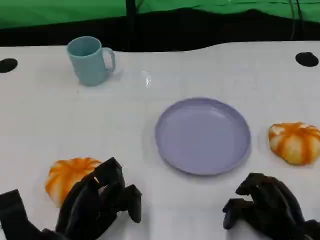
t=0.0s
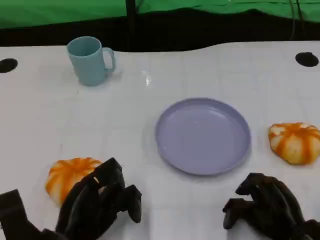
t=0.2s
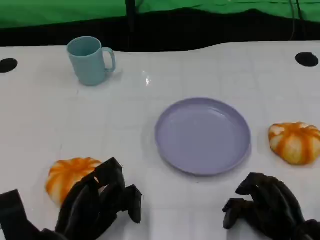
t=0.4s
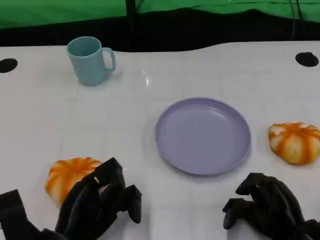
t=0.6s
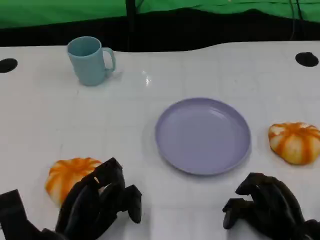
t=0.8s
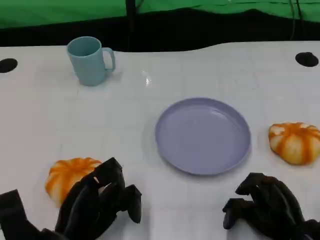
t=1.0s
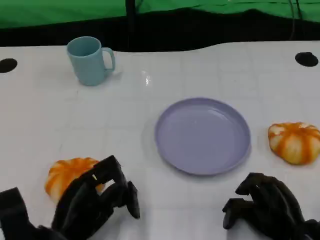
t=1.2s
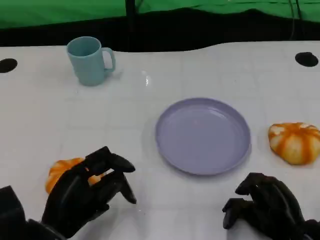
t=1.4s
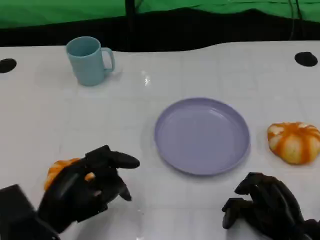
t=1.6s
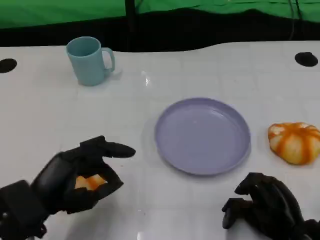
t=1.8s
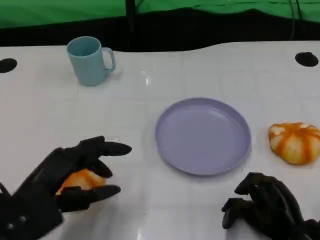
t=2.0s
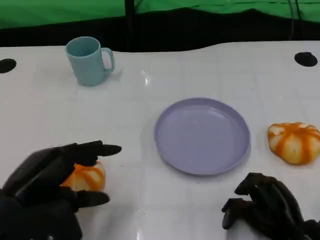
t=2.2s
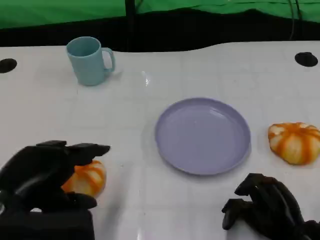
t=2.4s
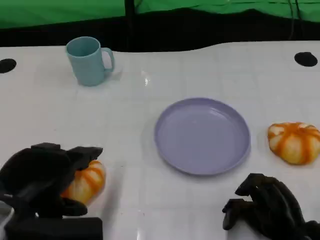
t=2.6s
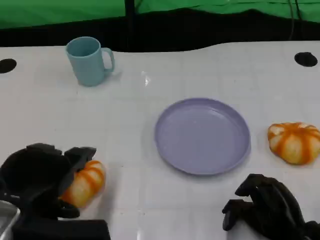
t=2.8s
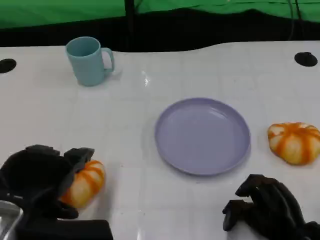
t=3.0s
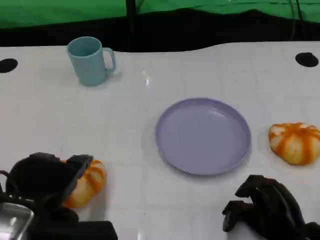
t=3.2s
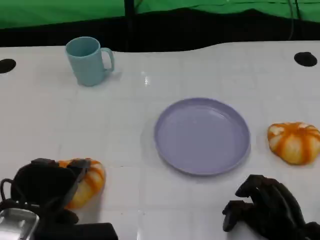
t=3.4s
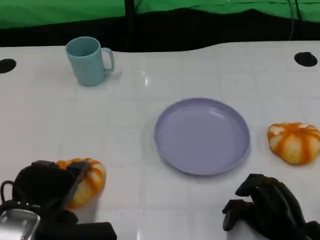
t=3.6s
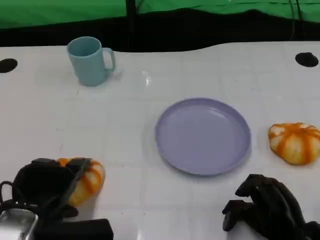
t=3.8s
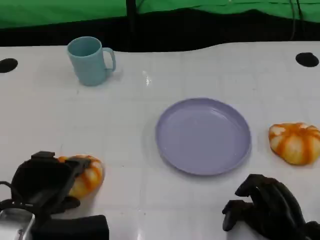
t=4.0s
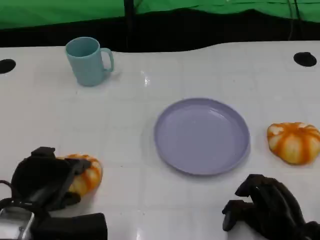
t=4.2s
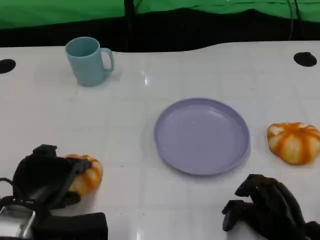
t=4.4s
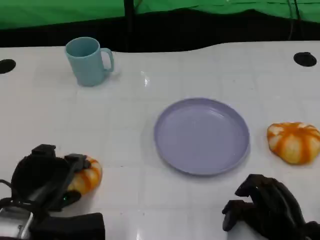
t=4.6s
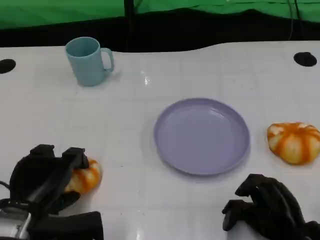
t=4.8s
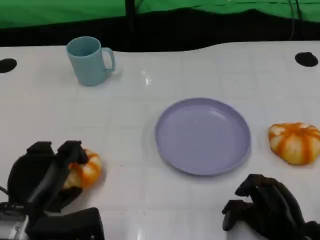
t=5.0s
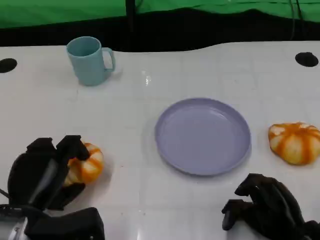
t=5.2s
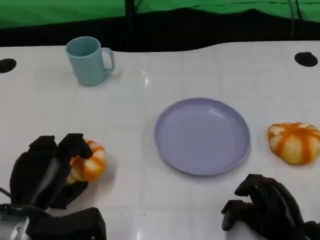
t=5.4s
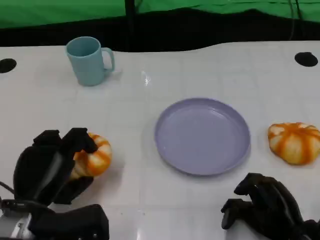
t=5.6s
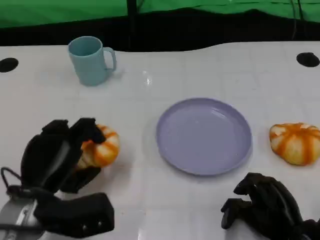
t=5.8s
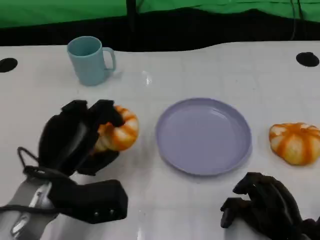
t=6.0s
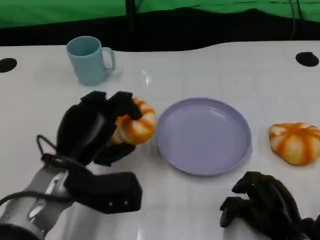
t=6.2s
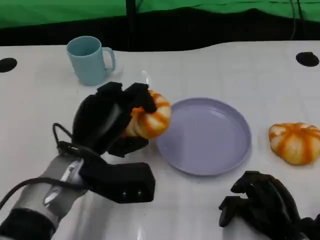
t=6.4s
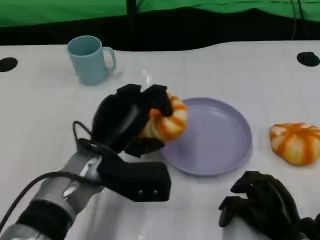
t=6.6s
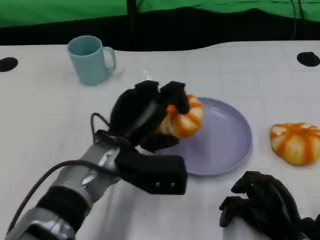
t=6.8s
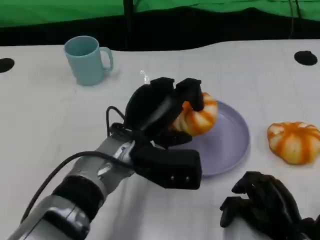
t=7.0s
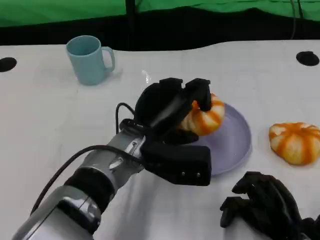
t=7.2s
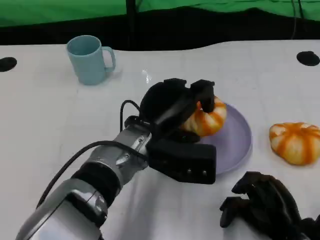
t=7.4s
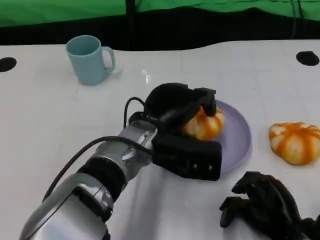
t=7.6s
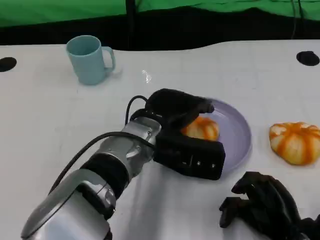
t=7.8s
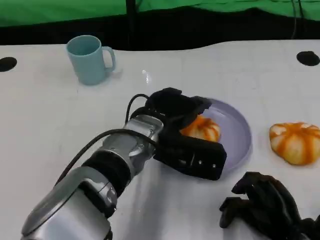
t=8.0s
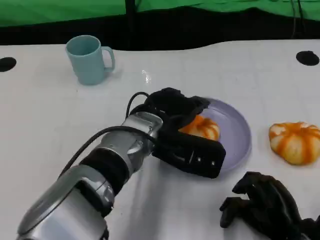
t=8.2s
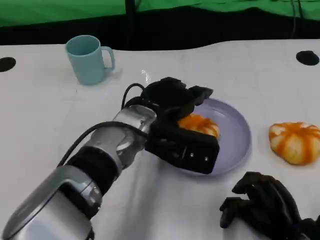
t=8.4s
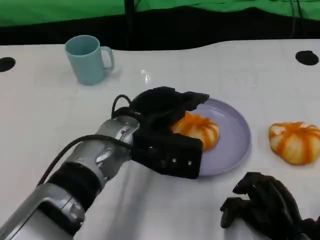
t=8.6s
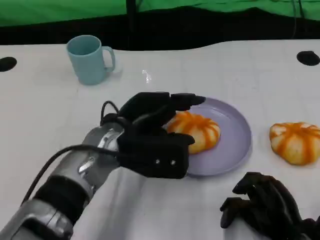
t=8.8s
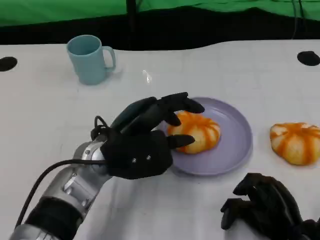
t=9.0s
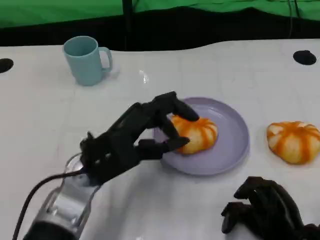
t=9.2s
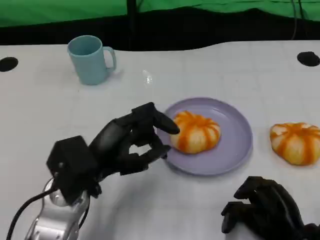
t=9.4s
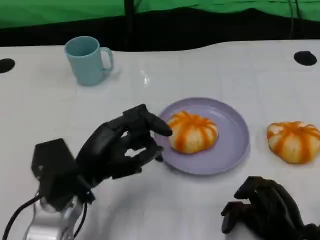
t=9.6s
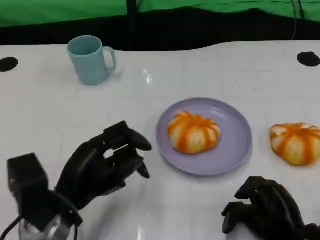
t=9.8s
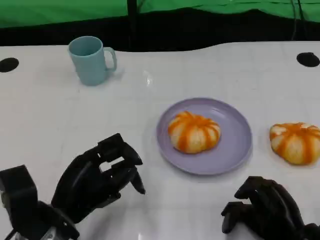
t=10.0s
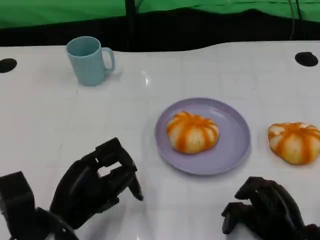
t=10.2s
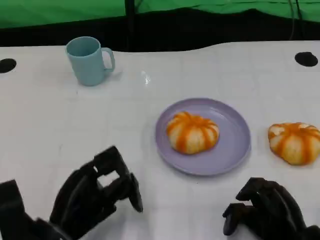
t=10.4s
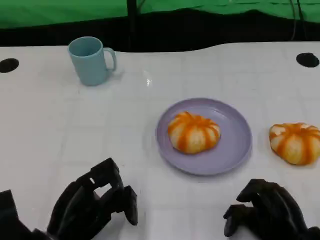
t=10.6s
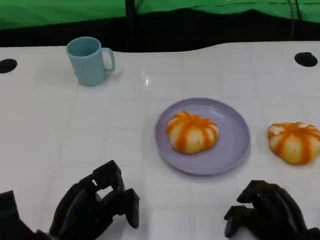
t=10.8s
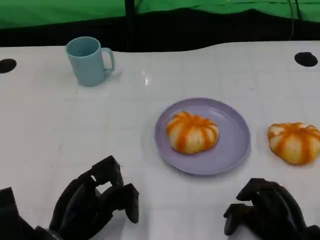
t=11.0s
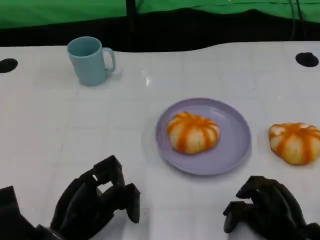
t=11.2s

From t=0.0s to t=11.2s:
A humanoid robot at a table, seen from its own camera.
Task of the whole recording: Grasp the bread from the table and place it into the plate.
From t=1.6s to t=3.2s: The left hand is displaced upward by approximately 5 cm.
From t=3.2s to t=4.8s: The left hand shifts about 5 cm downward.
From t=4.8s to t=6.4s: The left hand shifts approximately 10 cm to the right and forward.
From t=6.4s to t=8.0s: The left hand travels to the right by approximately 10 cm.
From t=8.0s to t=9.6s: The left hand travels to the left and backward by some 15 cm.
From t=9.6s to t=11.2s: The left hand is displaced downward by roughly 5 cm.

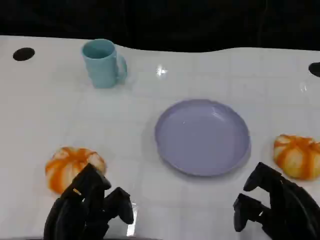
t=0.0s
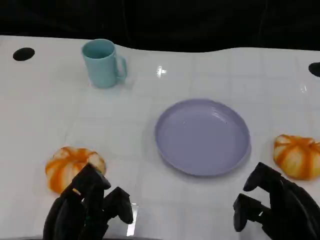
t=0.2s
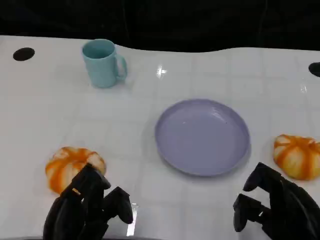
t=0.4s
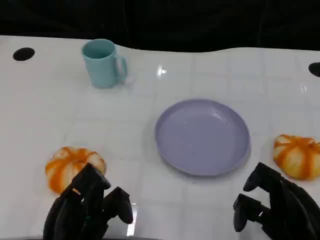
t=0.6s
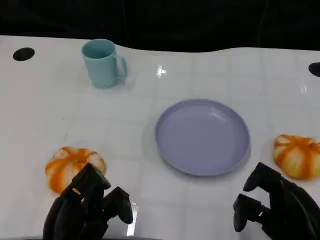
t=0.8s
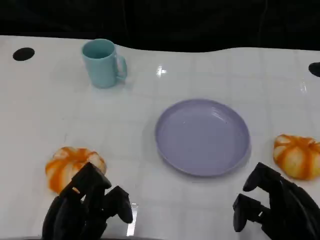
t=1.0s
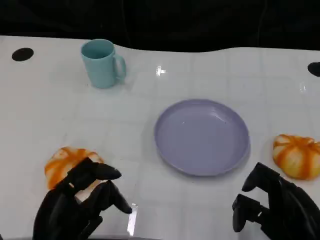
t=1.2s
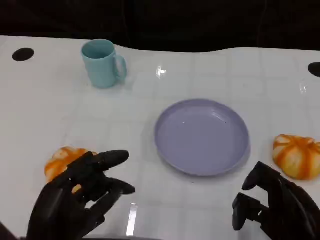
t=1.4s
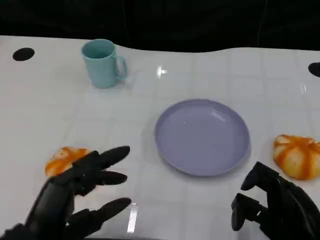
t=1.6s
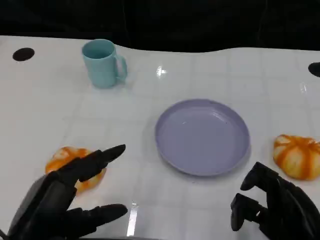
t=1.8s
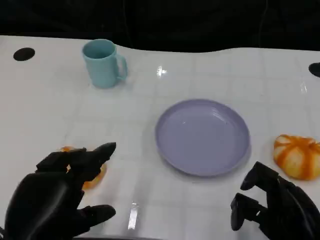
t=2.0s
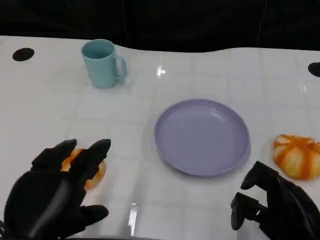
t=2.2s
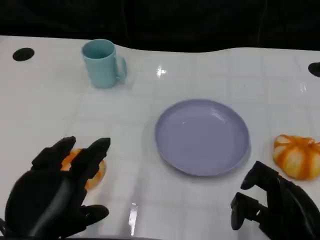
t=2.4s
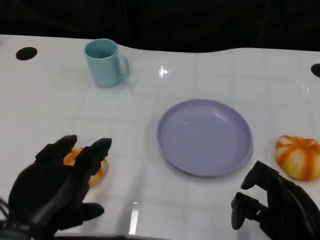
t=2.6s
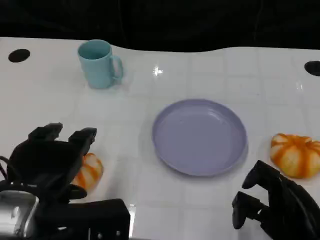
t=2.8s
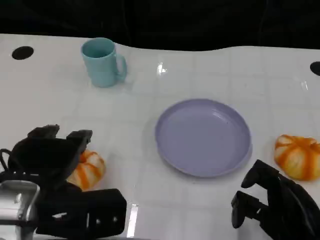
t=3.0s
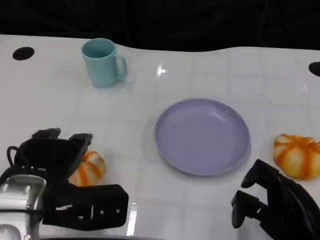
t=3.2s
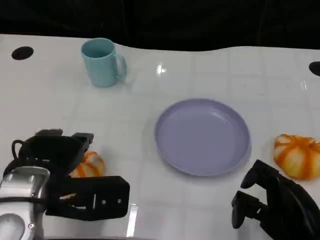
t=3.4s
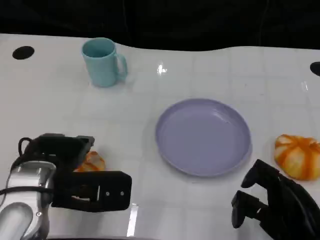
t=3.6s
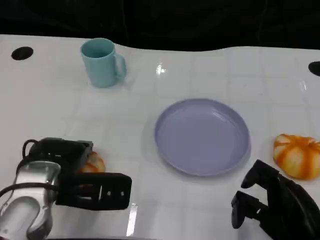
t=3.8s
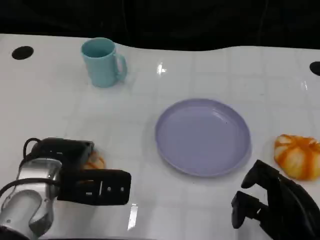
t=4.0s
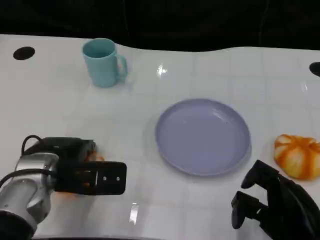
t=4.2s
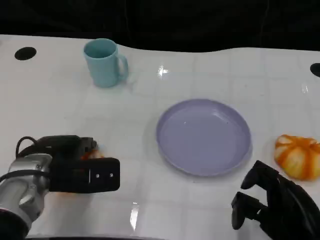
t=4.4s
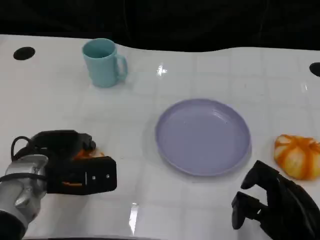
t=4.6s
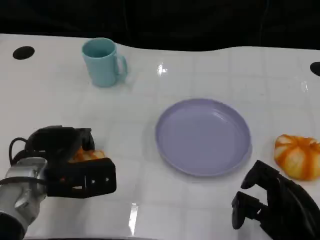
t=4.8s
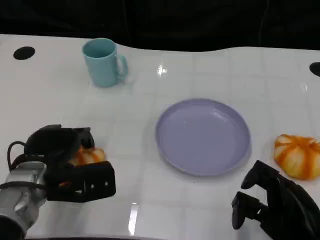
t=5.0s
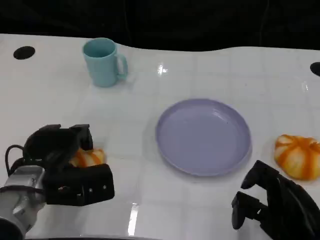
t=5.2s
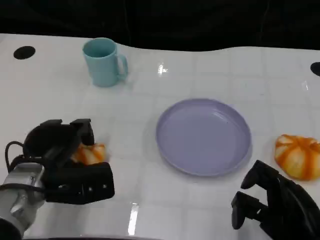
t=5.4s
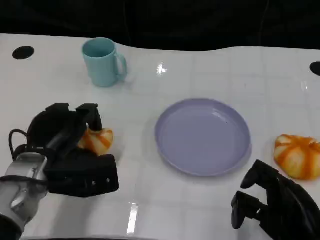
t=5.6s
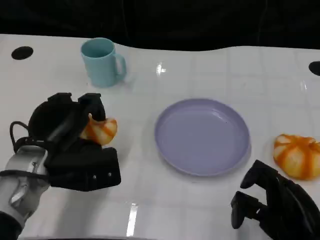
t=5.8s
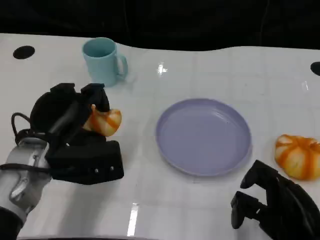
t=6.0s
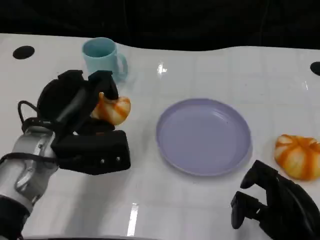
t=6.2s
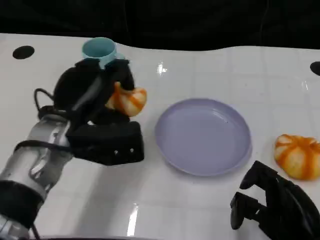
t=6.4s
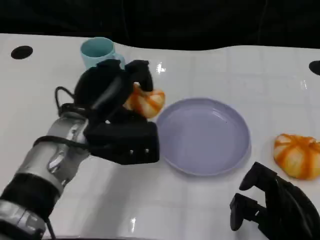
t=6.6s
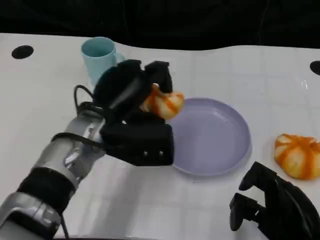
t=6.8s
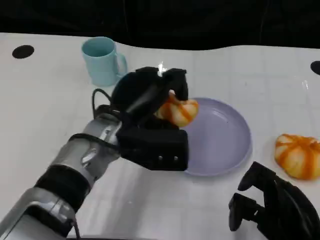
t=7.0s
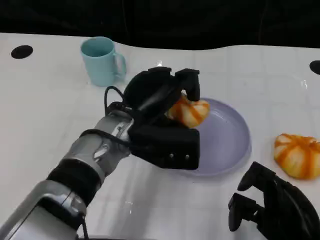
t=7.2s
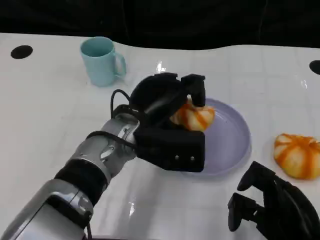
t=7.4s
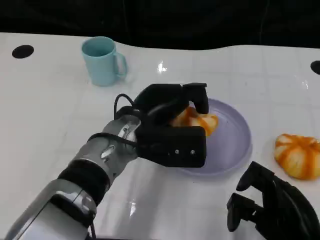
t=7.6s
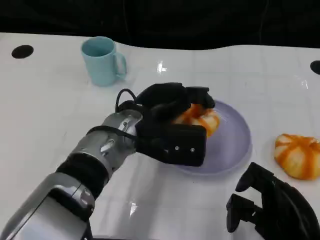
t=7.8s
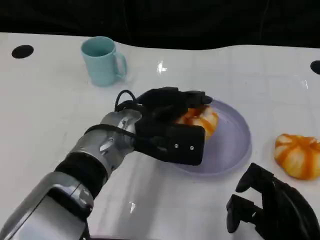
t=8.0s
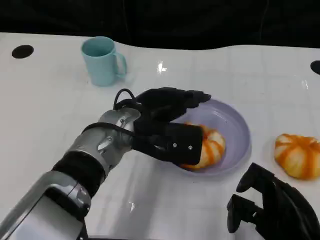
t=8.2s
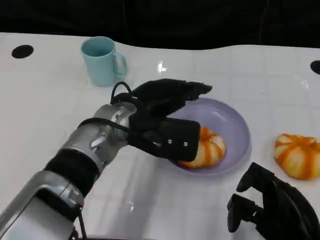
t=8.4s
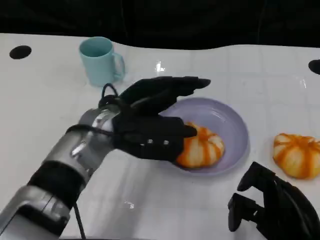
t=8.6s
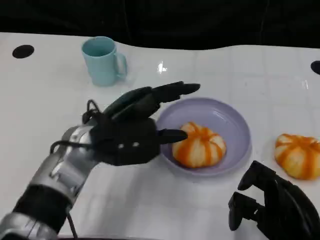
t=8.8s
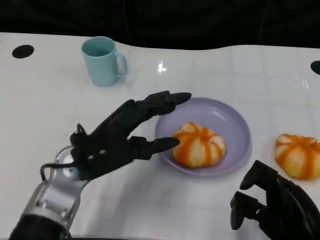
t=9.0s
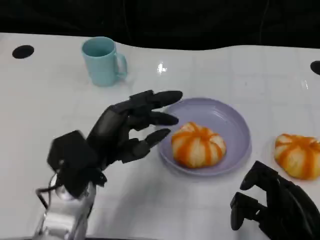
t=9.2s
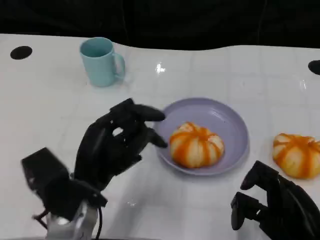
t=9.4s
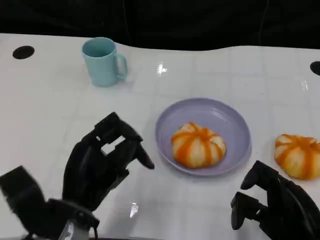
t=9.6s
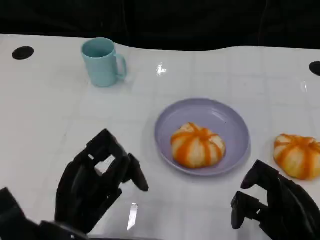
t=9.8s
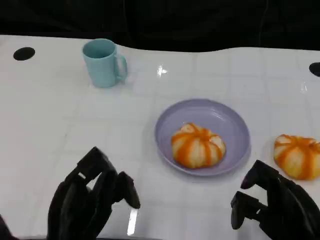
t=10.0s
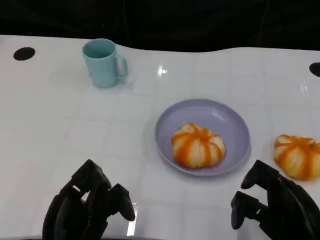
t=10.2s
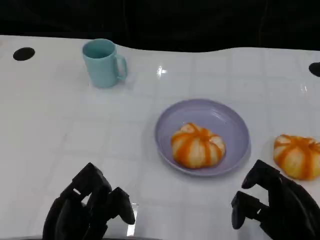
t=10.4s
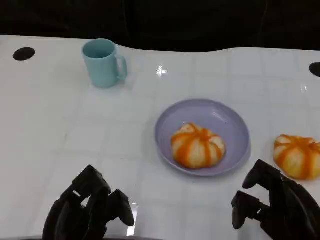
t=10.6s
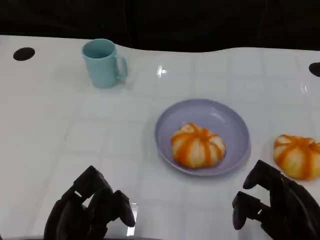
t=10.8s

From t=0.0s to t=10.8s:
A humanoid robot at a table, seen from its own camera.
Task of the whole recording: Grasp the bread from the table and place it into the plate.
From t=0.0s to t=1.6s: The left hand is displaced upward by approximately 5 cm.
From t=1.6s to t=3.0s: The left hand shifts approximately 5 cm forward.
From t=3.0s to t=4.6s: The left hand shifts roughly 10 cm forward and downward.
From t=4.6s to t=6.2s: The left hand shifts some 5 cm upward.
From t=6.2s to t=7.8s: The left hand goes some 10 cm to the right.
From t=7.8s to t=9.2s: The left hand is displaced to the left and backward by approximately 10 cm.
From t=9.2s to t=10.8s: The left hand shifts approximately 10 cm backward and downward.
